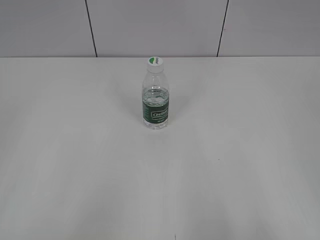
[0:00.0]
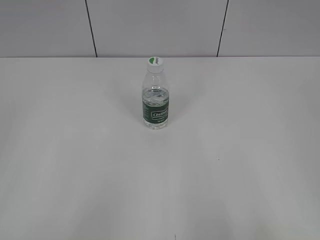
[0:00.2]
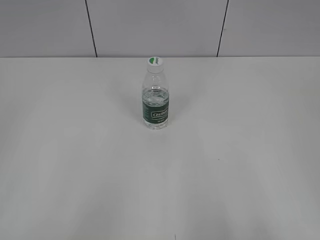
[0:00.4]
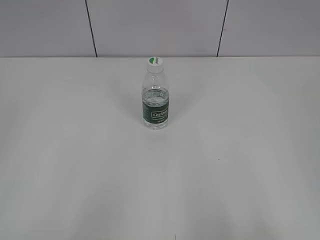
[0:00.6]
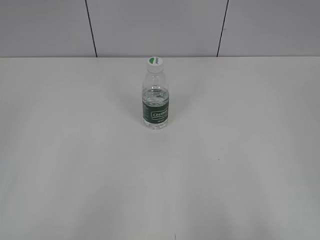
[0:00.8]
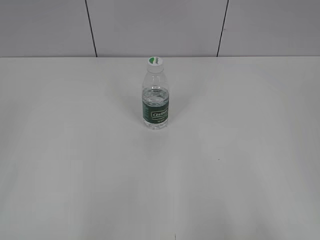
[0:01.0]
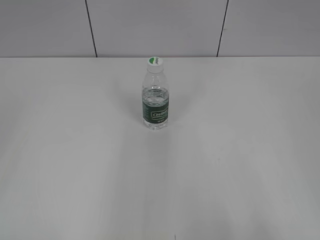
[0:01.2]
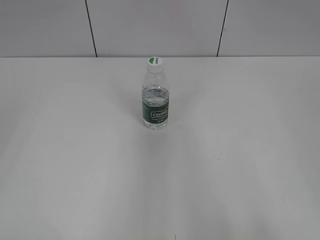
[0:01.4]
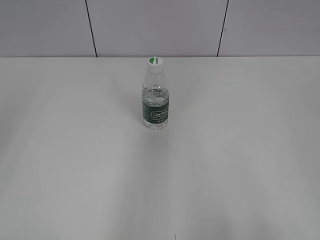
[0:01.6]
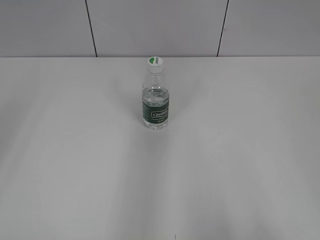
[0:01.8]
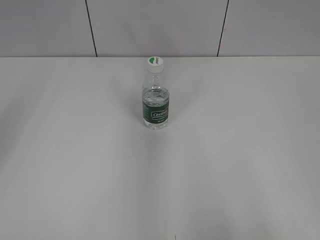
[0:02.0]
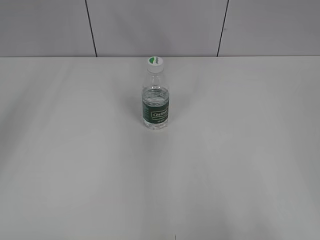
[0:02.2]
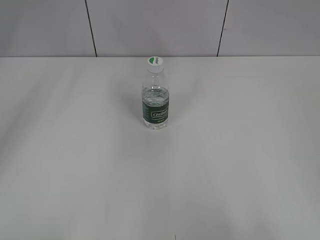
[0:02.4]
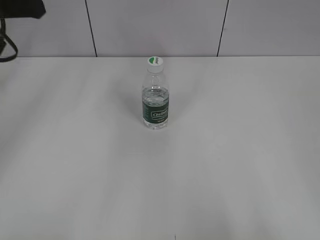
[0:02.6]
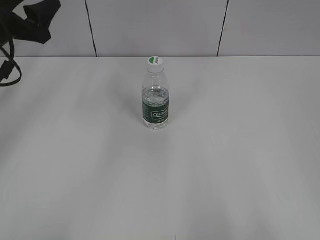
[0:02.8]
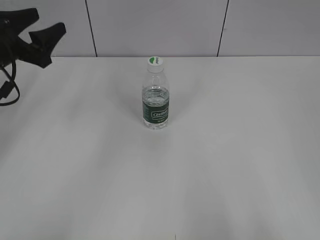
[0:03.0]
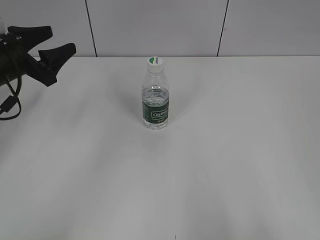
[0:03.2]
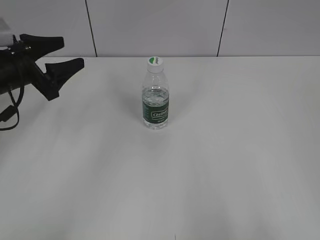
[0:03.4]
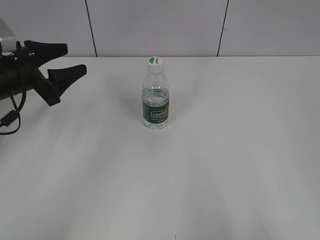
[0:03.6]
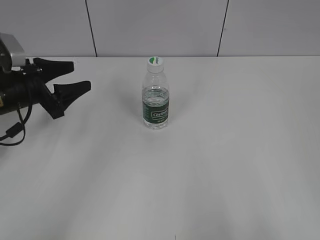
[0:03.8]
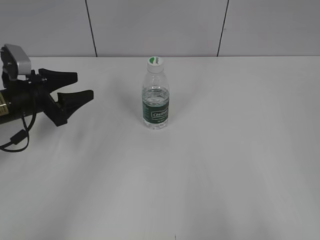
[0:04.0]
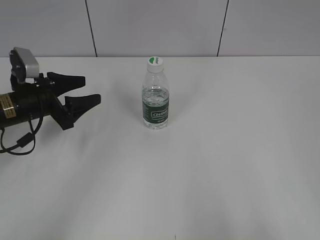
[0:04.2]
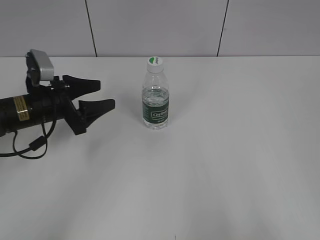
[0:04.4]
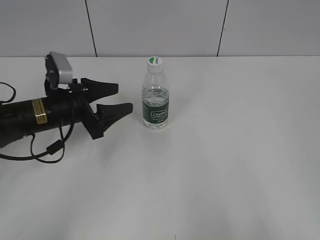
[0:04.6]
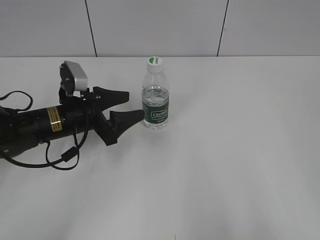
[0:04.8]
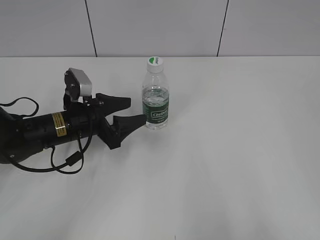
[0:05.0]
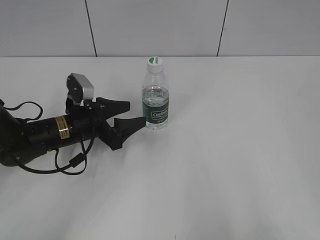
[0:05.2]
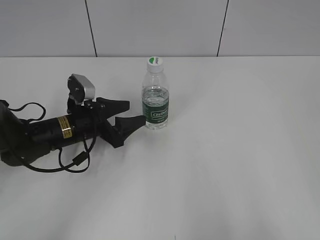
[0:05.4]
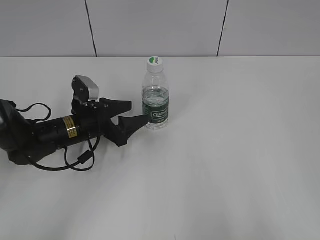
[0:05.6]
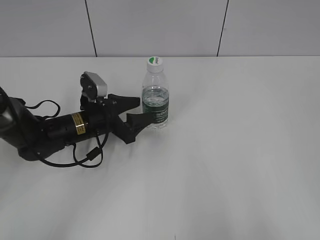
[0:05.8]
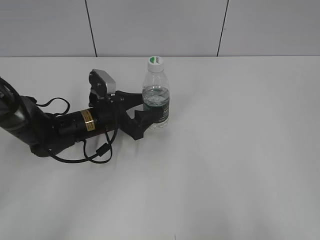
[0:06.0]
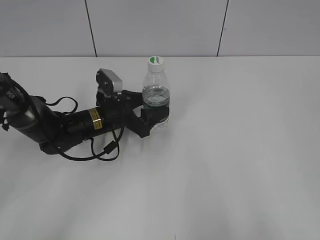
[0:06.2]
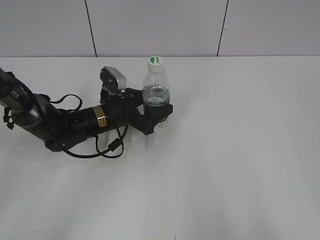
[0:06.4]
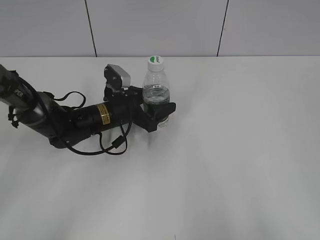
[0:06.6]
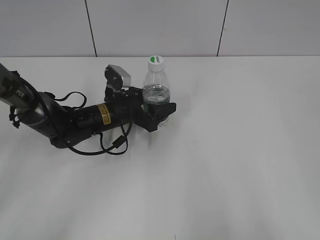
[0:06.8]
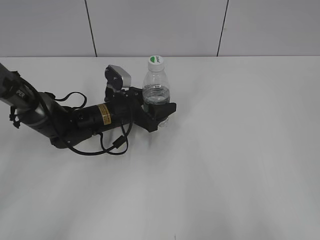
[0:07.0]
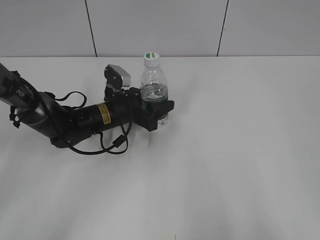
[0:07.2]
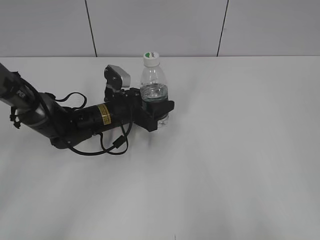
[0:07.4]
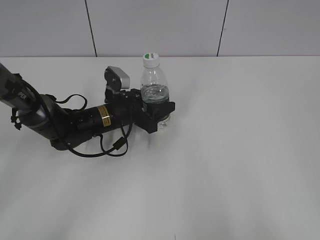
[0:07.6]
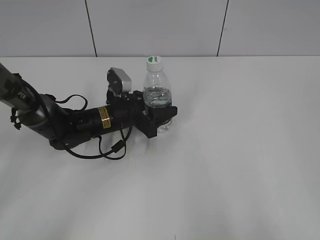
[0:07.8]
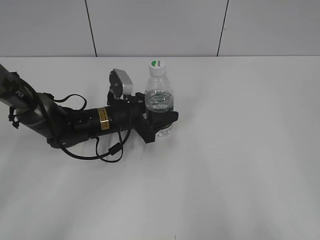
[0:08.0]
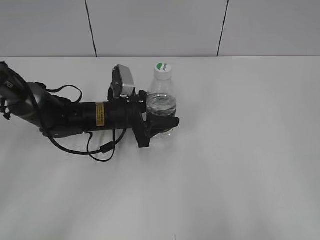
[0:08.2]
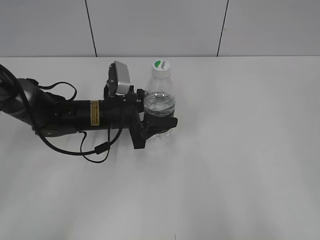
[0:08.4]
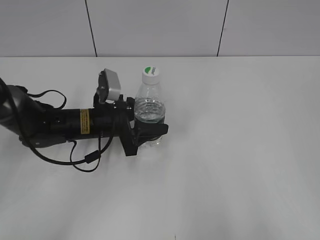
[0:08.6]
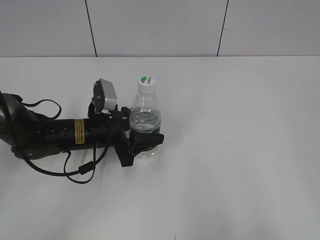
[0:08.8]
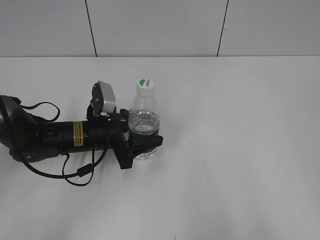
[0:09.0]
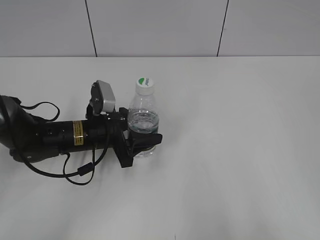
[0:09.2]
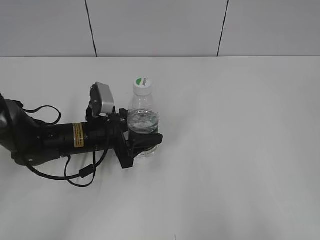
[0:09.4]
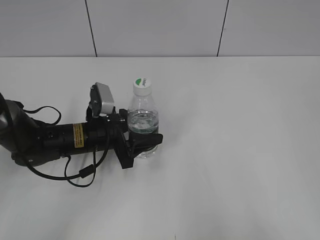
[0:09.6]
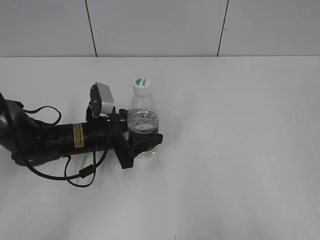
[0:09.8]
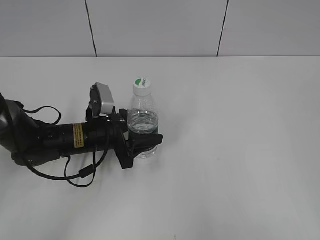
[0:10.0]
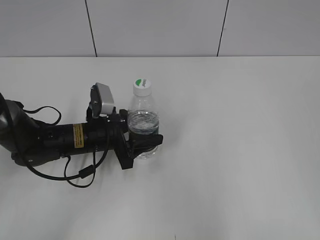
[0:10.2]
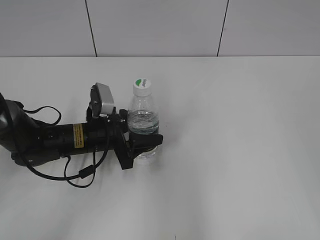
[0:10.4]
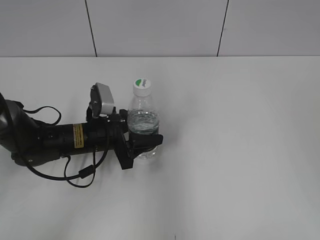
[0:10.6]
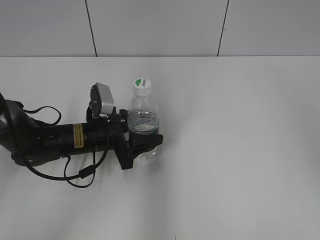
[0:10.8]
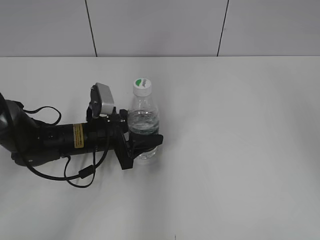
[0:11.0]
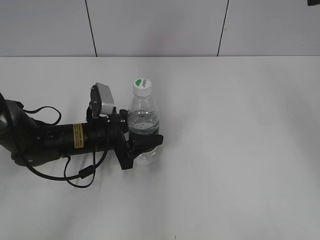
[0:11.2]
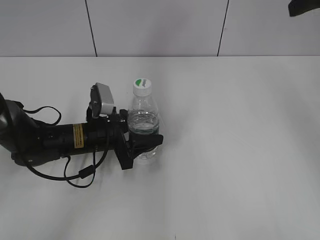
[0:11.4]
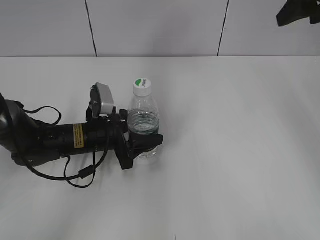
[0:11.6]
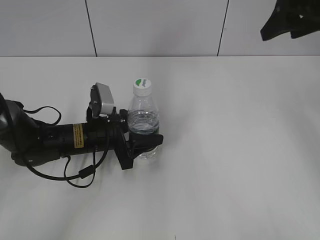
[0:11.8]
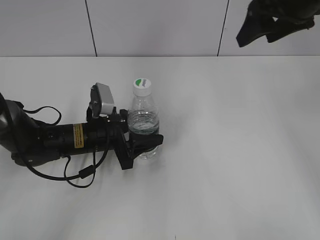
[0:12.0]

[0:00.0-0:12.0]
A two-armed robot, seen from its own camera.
Step, 0:00.0 to 0:07.2: Grasp the bottle and move it to the center of the table with the left gripper.
Step, 0:07.4 to 0:09.8: Lift the bottle and move it to the center of the table with the left gripper.
0:01.6 to 0:03.0: The left gripper moves forward and downward, approximately 35 cm.
0:03.0 to 0:04.4: The left gripper is displaced downward and to the right by some 10 cm.
0:04.4 to 0:06.0: The left gripper goes approximately 10 cm to the right and downward.
0:06.0 to 0:07.6: The left gripper closes.
0:07.6 to 0:09.0: The left gripper travels backward by some 5 cm.
0:09.0 to 0:10.4: The right gripper moves forward and upward, approximately 10 cm.
0:10.4 to 0:12.0: The right gripper heads forward, covering some 30 cm.

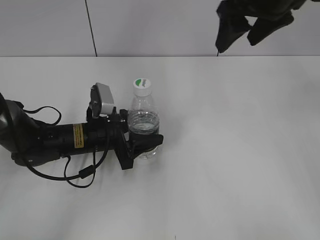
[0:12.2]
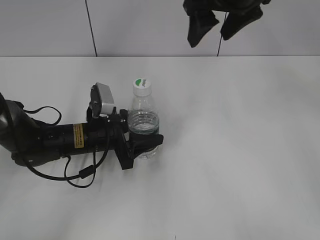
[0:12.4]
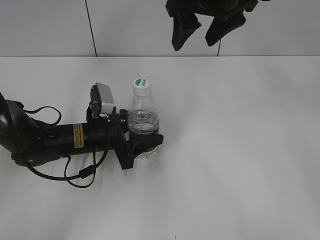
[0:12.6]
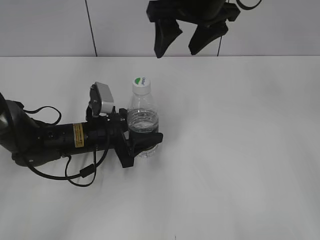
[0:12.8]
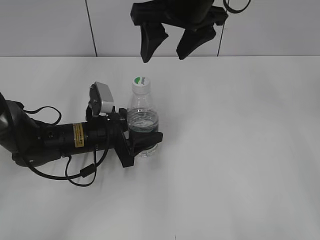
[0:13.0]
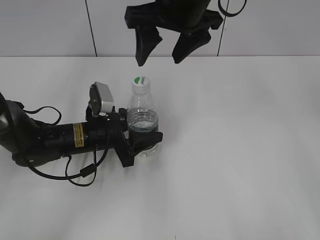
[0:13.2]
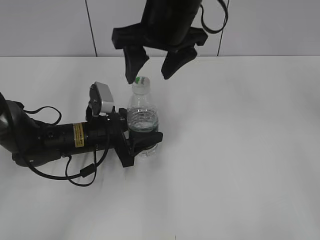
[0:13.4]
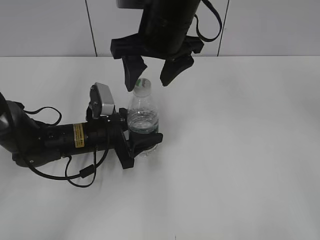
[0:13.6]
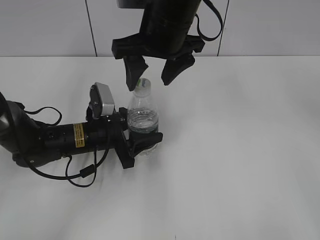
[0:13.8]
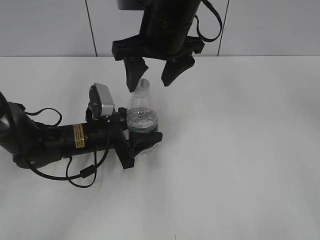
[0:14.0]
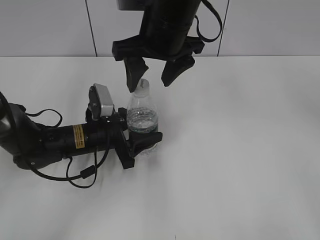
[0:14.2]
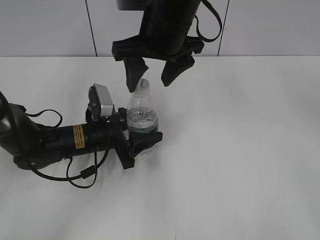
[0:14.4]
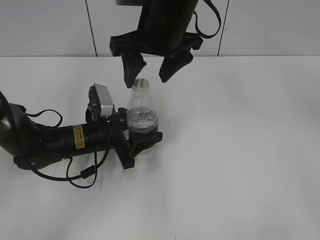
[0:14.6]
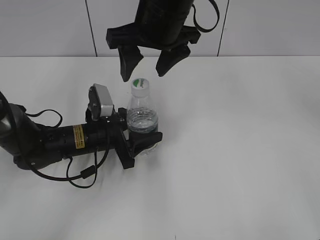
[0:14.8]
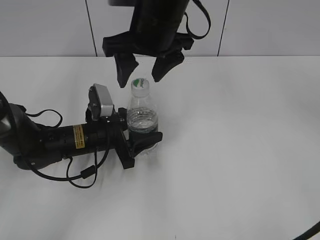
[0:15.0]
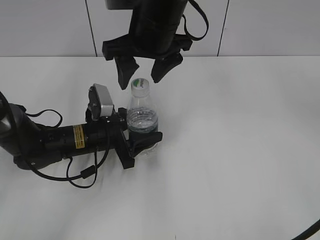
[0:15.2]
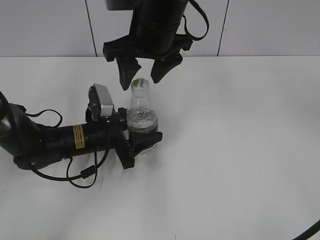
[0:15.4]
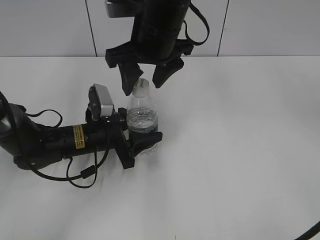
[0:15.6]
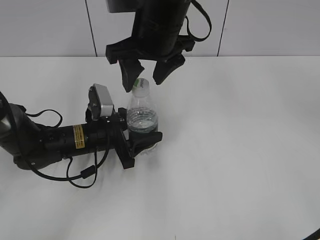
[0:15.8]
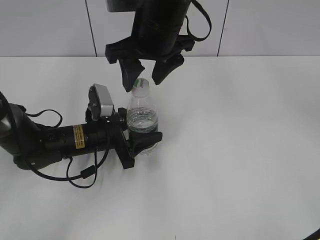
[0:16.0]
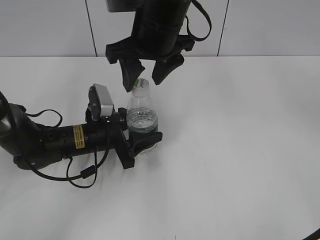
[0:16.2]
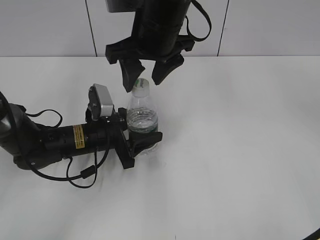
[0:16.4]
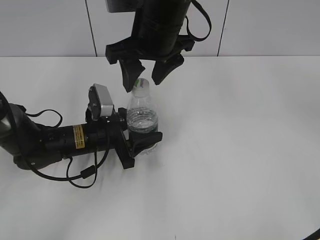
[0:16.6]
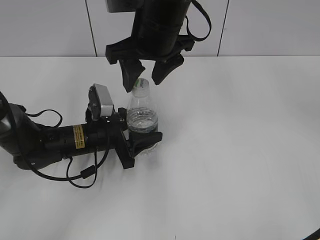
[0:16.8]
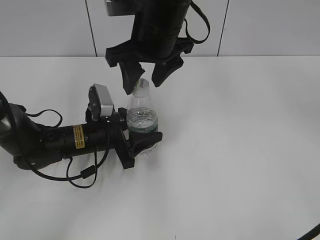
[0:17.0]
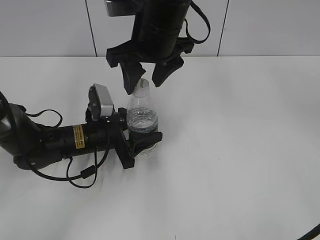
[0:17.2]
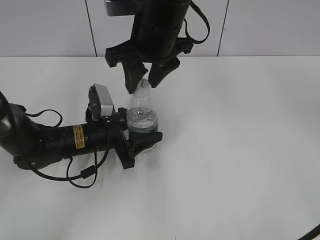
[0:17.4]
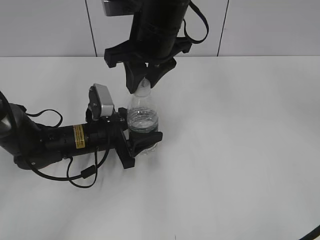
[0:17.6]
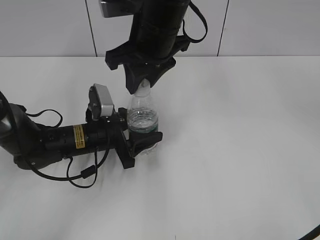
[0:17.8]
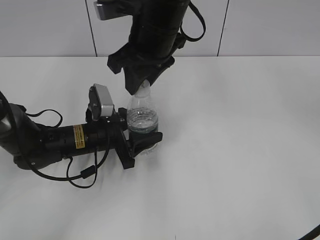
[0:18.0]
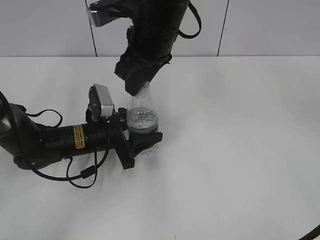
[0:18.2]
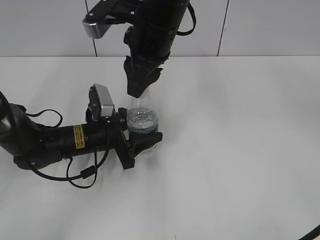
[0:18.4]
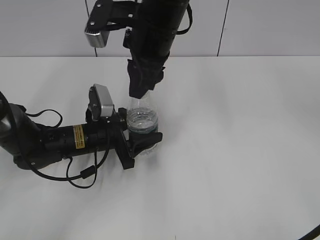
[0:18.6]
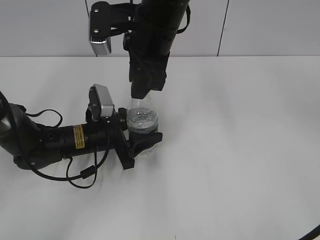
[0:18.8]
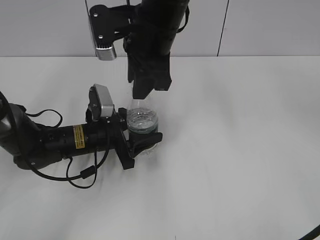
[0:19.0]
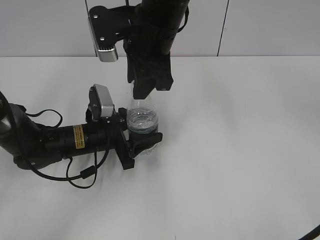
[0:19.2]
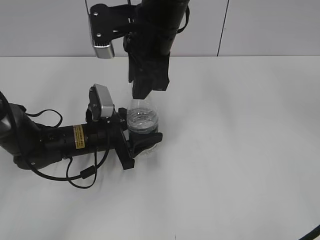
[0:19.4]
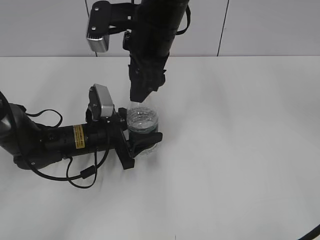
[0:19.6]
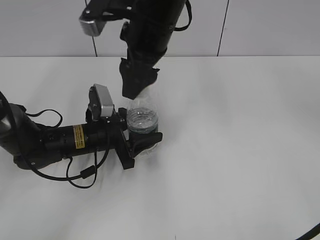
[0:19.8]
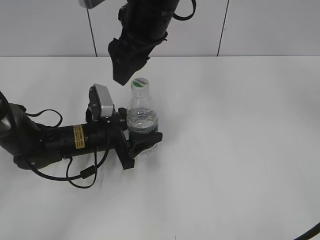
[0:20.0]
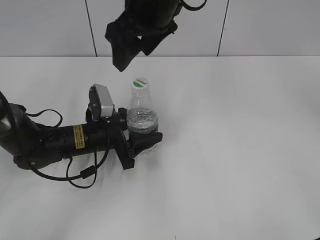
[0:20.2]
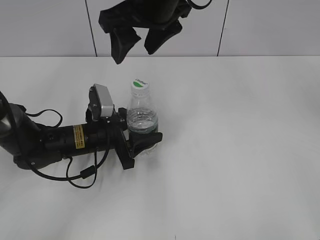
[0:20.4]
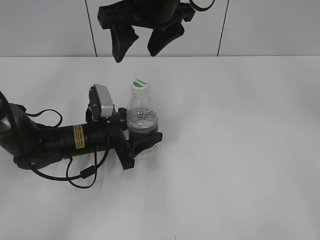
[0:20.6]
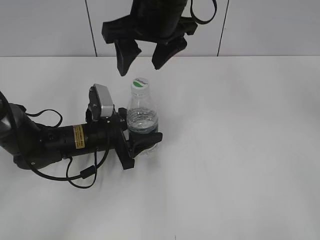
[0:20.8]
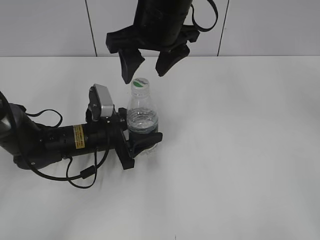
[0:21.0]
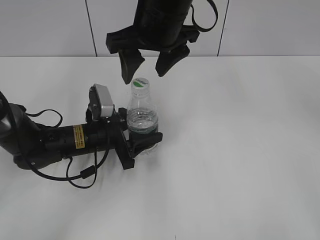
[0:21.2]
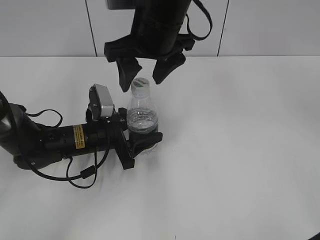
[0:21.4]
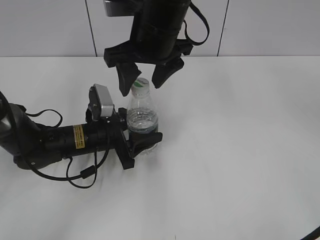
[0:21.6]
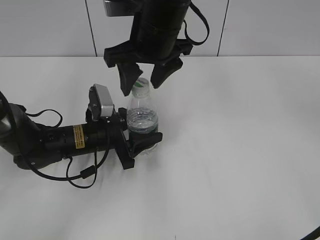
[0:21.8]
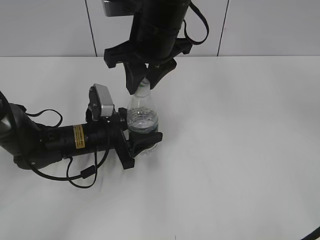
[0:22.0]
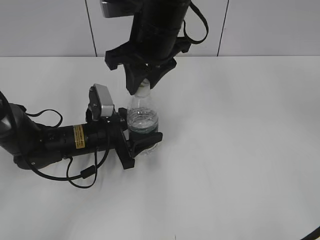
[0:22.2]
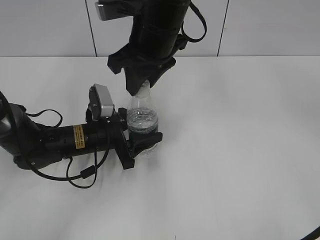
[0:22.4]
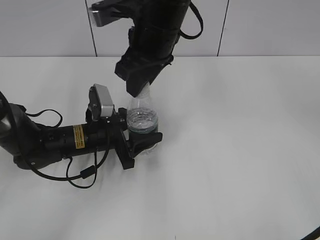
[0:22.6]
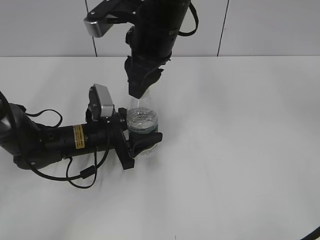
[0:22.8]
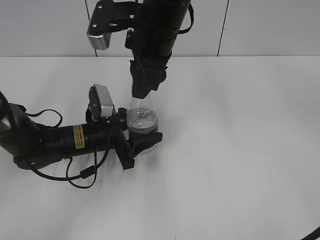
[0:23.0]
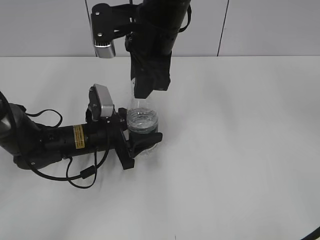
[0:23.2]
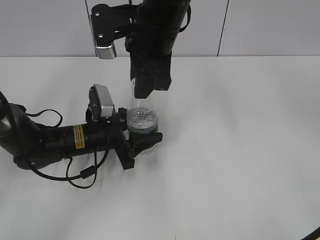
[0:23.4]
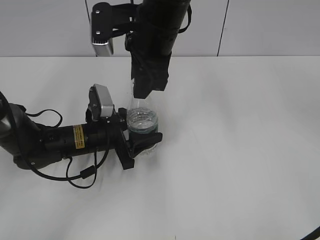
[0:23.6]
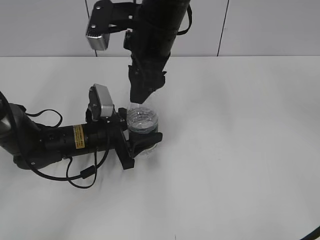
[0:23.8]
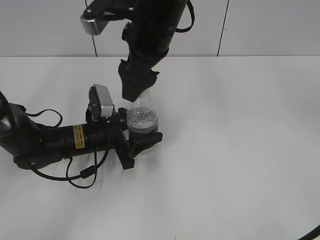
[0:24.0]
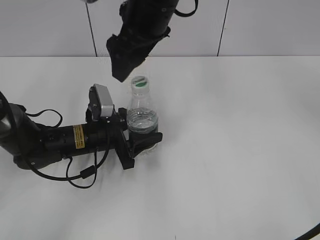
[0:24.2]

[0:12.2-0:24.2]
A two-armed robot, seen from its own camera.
0:12.2 to 0:13.8: The right gripper heads to the left, covering about 15 cm.
0:13.8 to 0:15.2: The grippers move only a little.
0:15.2 to 0:16.6: Neither gripper changes place.
0:16.6 to 0:18.2: The right gripper closes up.
0:18.2 to 0:19.8: The right gripper opens.
0:21.2 to 0:22.6: The right gripper closes its fingers.
0:22.6 to 0:24.2: The right gripper opens.
